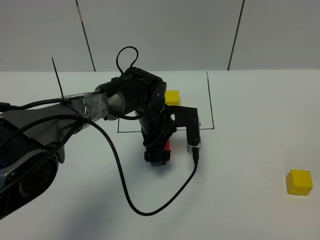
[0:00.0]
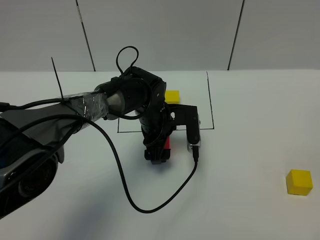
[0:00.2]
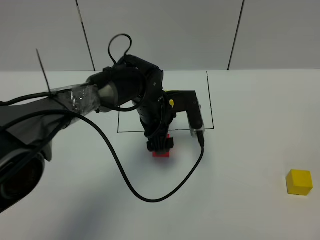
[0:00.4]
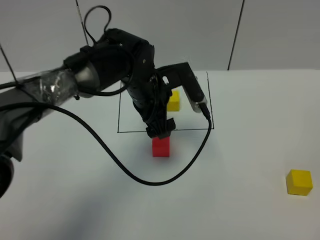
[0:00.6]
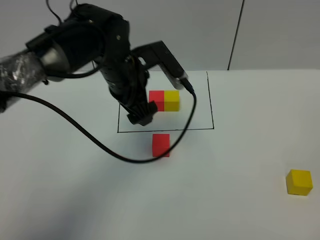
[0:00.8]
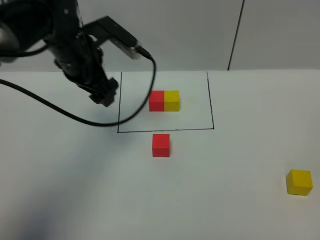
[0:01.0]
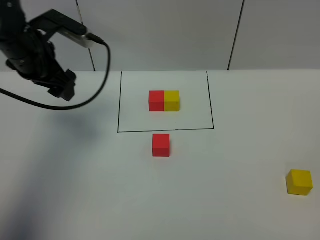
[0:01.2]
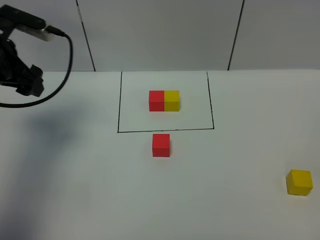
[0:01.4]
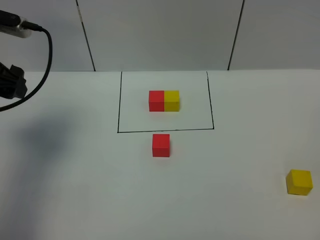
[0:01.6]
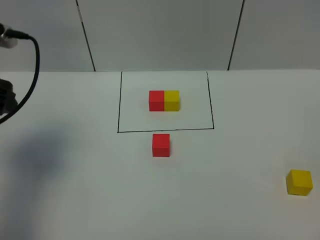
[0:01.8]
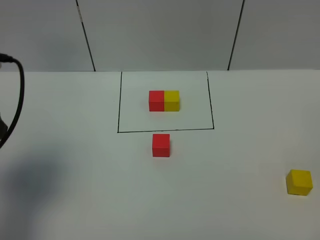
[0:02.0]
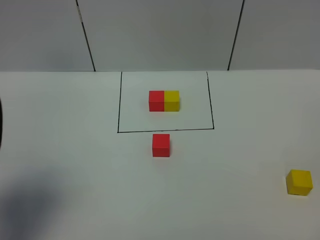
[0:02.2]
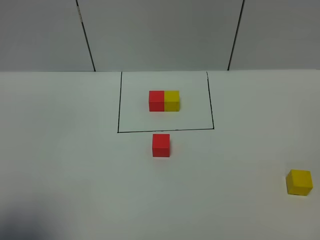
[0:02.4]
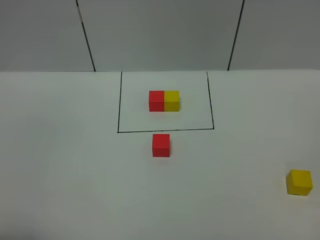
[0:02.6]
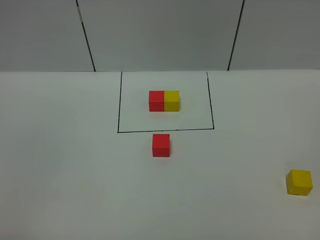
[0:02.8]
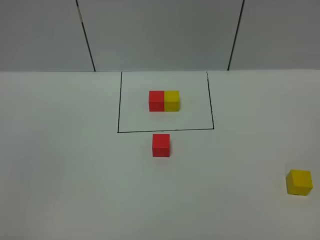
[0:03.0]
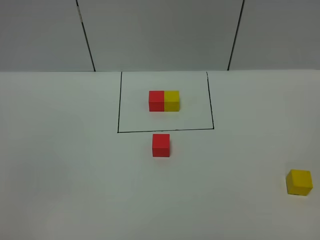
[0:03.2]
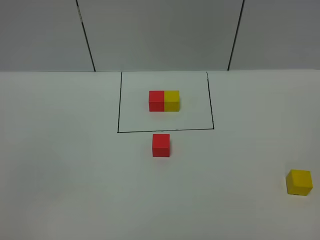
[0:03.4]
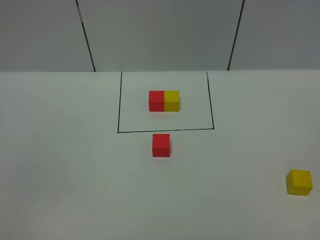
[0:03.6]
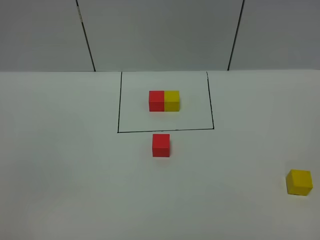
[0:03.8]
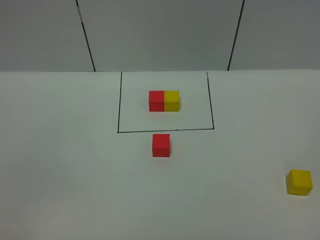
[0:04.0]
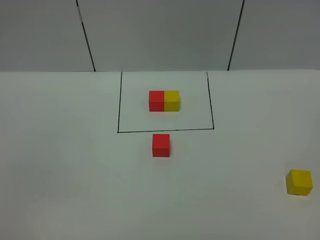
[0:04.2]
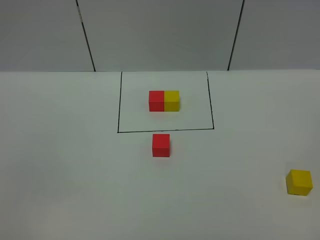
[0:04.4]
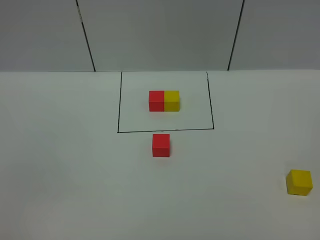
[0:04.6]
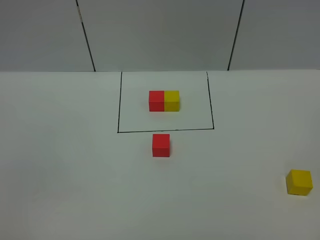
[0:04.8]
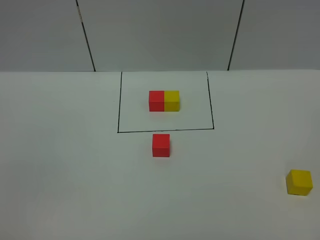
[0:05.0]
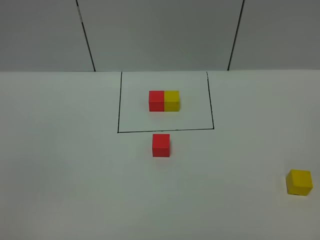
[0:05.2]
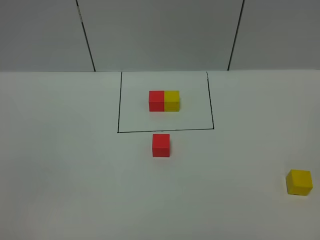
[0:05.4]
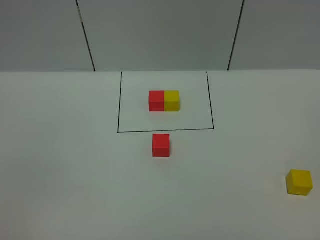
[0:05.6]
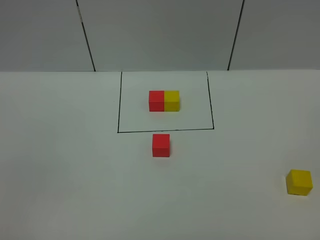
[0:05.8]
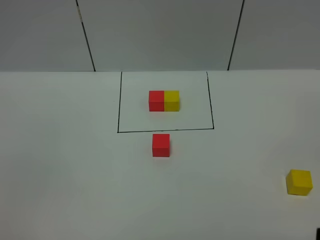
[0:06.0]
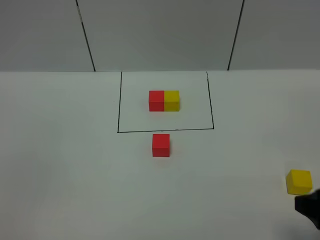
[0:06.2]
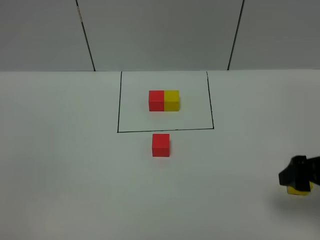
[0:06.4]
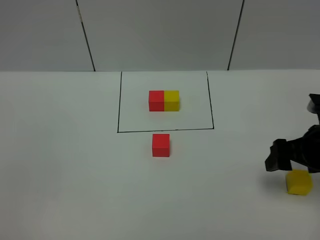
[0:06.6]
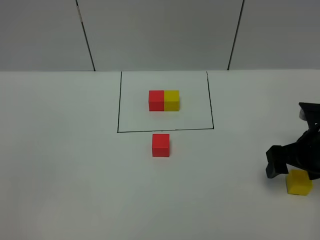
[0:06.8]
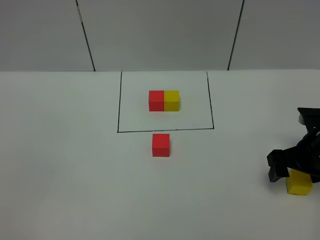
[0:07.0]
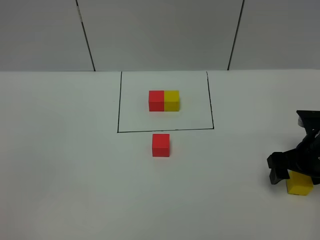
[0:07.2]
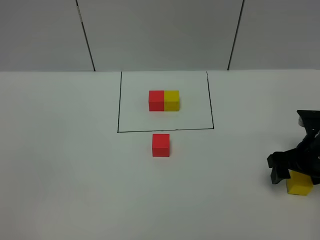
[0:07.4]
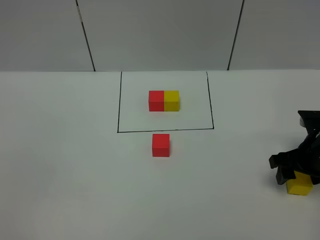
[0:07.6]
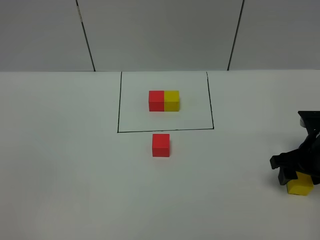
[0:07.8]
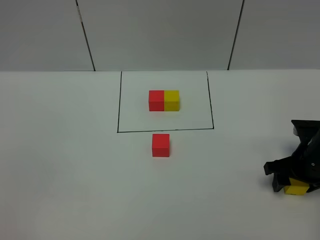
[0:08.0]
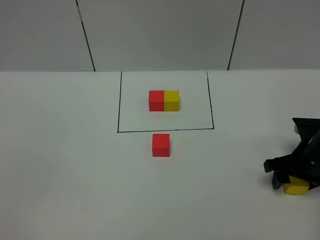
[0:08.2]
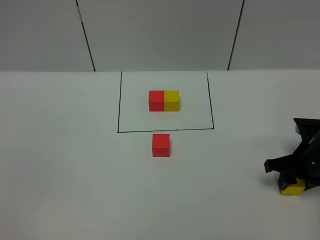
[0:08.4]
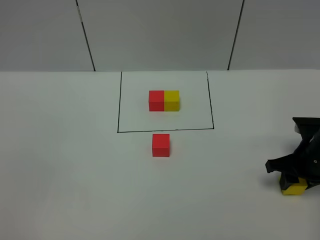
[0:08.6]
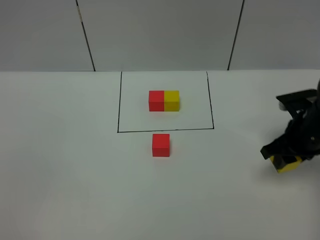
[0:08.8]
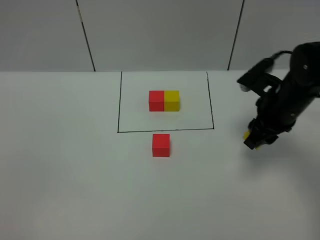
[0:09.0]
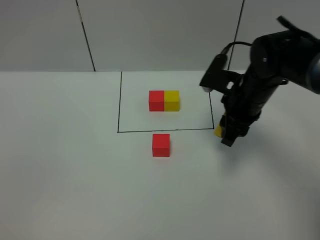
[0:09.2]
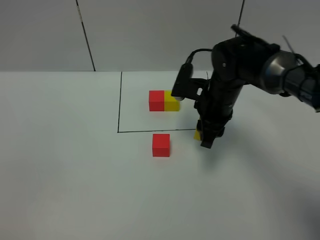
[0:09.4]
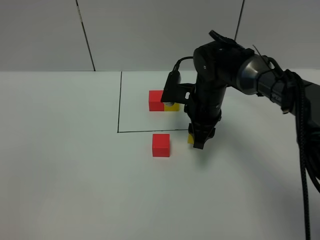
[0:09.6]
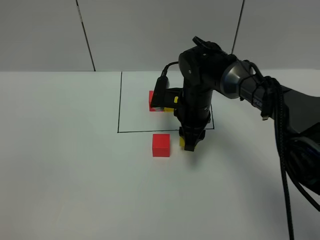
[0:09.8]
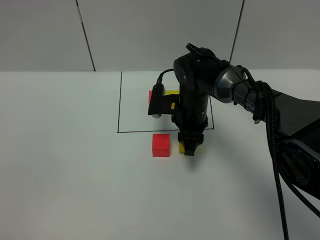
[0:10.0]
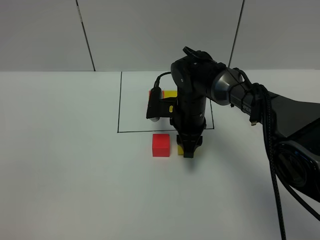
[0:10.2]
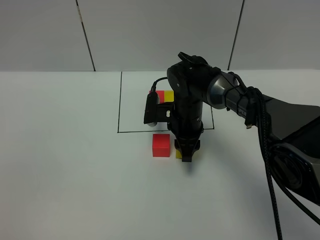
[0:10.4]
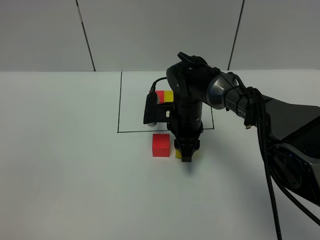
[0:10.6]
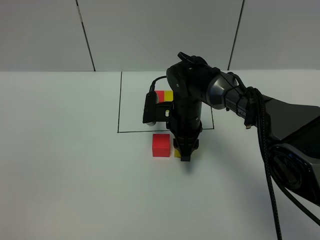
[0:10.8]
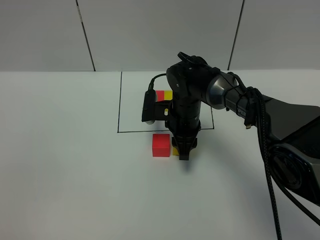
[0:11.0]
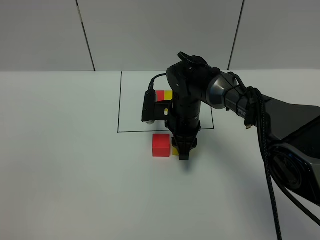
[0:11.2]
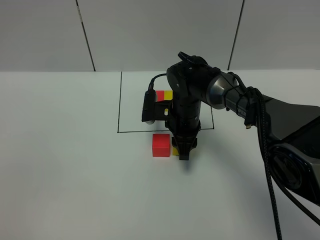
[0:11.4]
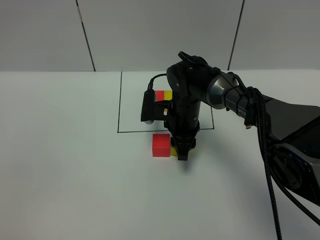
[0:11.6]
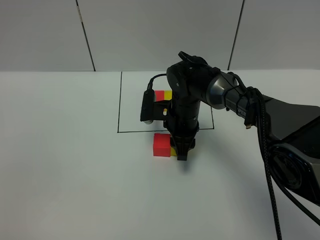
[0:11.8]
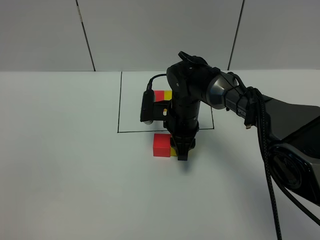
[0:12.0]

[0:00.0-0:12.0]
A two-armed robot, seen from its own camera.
Task of the whole recording: According to the building block template in front, assemble the scattered blocks together.
0:00.0 to 0:01.6: The left gripper moves to the left and upward, approximately 35 cm.
0:01.6 to 0:03.0: The left gripper travels backward by some 35 cm.
0:06.0 to 0:07.6: The right gripper travels forward and downward by about 30 cm.
0:07.6 to 0:09.0: The right gripper is displaced to the left, upward and forward by some 10 cm, and closes its fingers.
0:09.0 to 0:10.4: The right gripper moves to the left and downward, approximately 20 cm.
0:10.4 to 0:12.0: Both grippers stay about where they are.

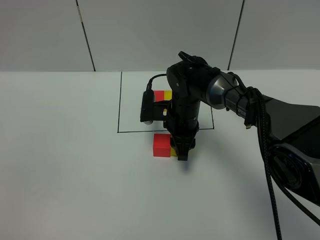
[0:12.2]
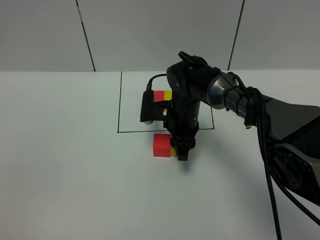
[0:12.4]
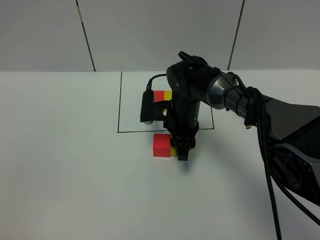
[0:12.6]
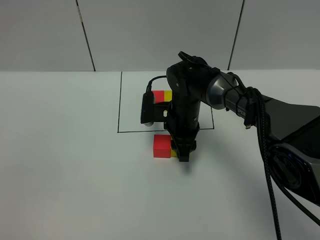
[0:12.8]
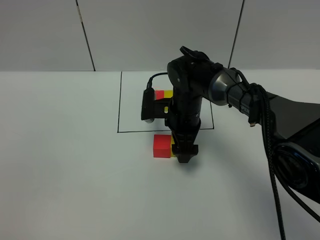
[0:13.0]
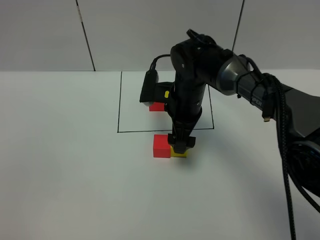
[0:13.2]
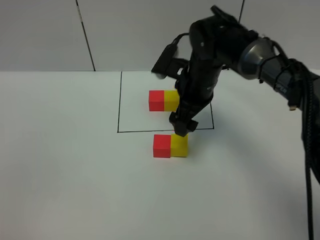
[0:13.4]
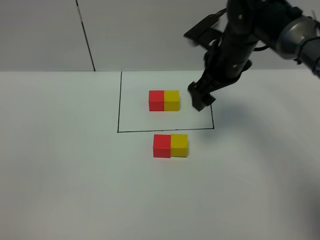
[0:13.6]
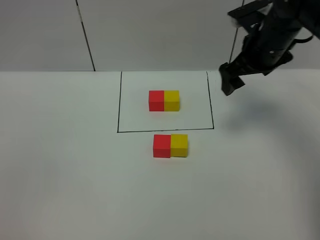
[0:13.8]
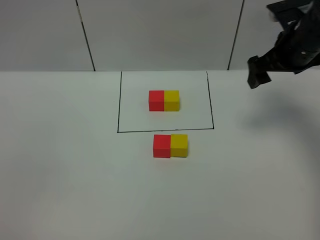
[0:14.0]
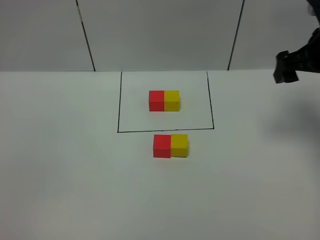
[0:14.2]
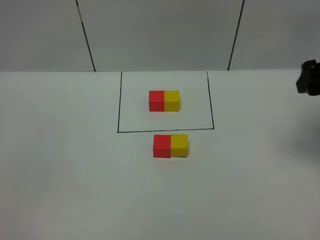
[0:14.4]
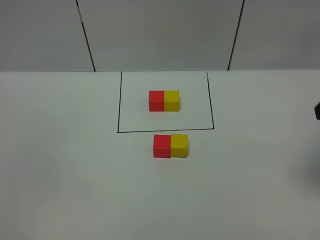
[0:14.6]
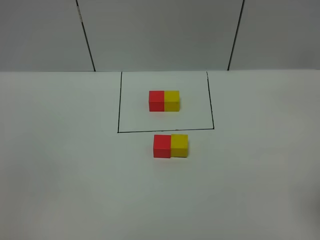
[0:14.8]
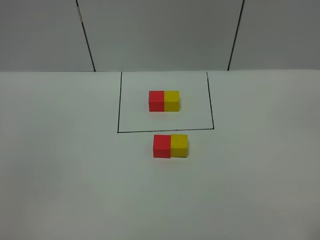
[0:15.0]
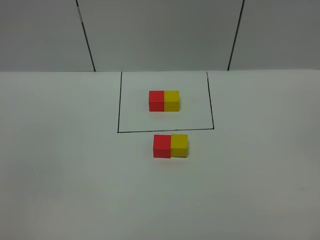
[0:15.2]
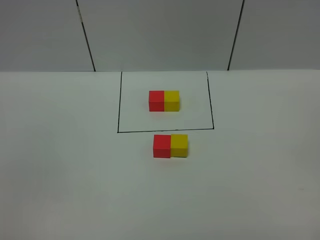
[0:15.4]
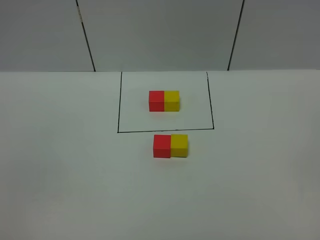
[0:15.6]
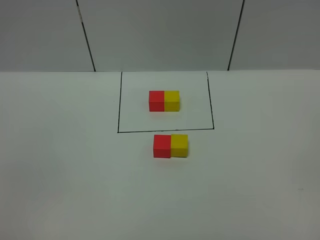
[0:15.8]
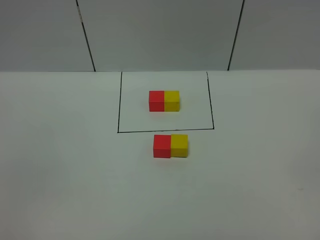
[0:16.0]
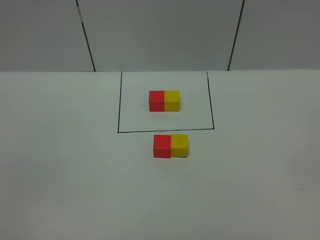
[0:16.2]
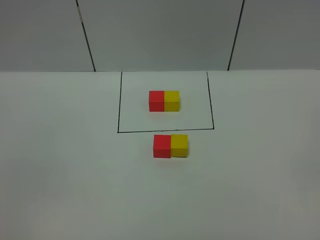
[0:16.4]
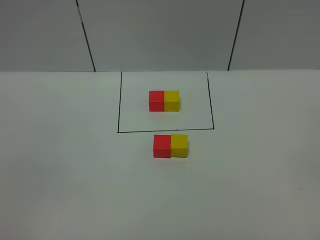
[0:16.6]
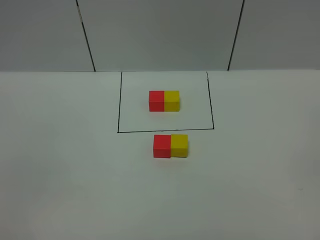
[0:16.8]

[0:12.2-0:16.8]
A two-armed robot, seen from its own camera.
Task of the whole recording: According to the building block template in front, assemble the scattered blocks together.
0:12.2 to 0:13.8: The right gripper is displaced to the right and upward by roughly 20 cm, and opens its fingers.
0:13.8 to 0:15.2: The right gripper goes roughly 40 cm backward.

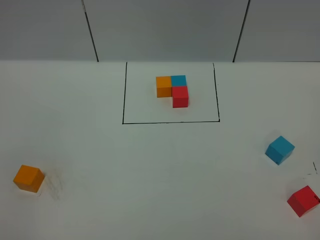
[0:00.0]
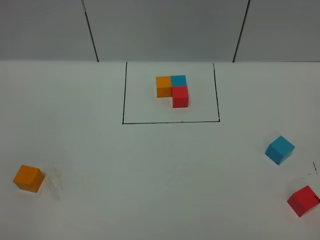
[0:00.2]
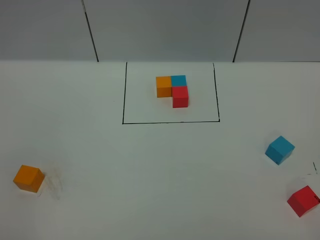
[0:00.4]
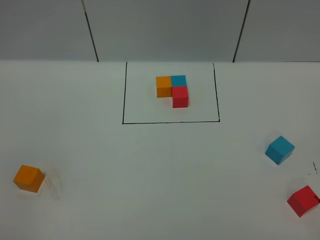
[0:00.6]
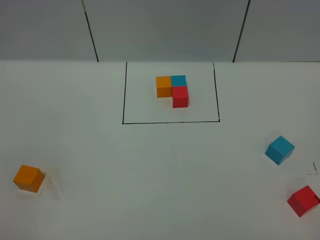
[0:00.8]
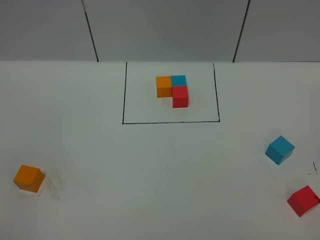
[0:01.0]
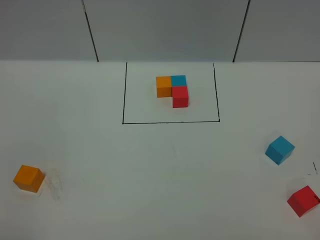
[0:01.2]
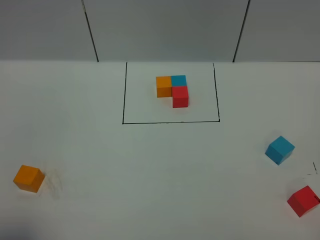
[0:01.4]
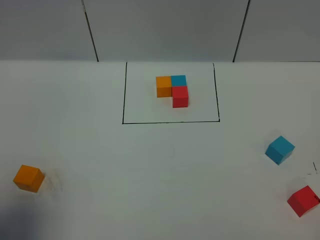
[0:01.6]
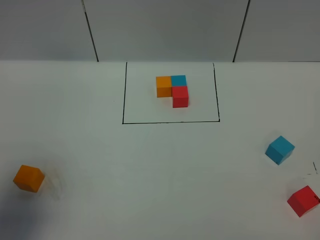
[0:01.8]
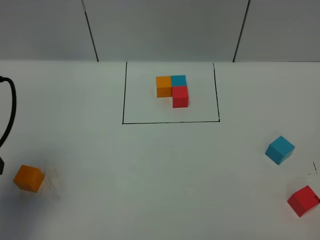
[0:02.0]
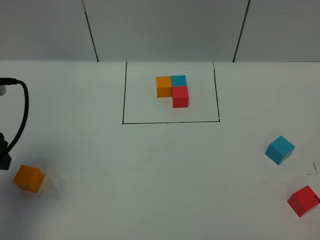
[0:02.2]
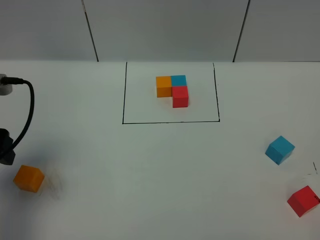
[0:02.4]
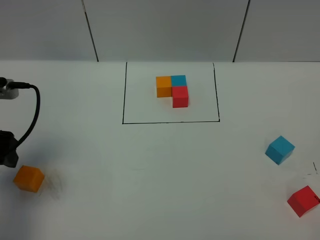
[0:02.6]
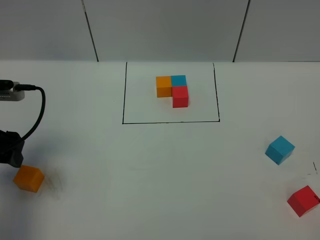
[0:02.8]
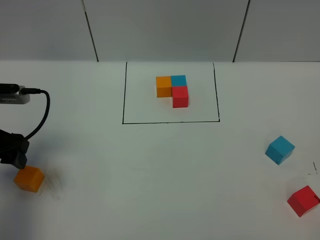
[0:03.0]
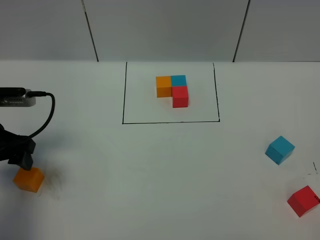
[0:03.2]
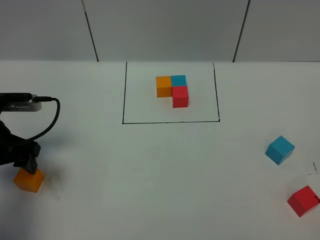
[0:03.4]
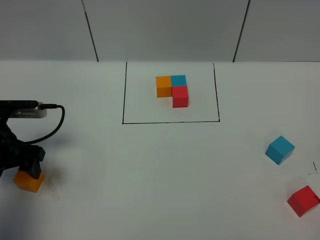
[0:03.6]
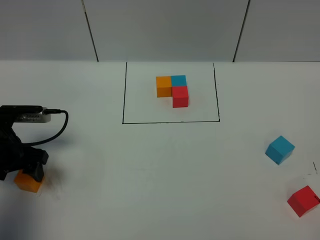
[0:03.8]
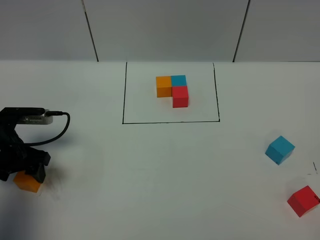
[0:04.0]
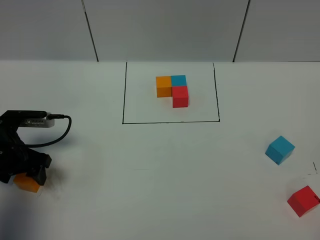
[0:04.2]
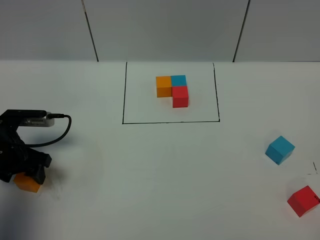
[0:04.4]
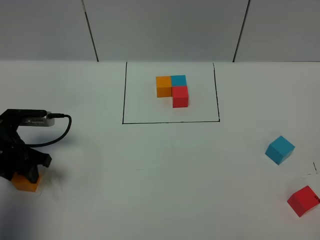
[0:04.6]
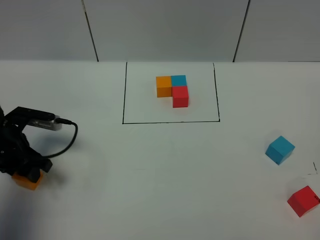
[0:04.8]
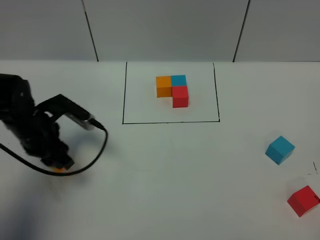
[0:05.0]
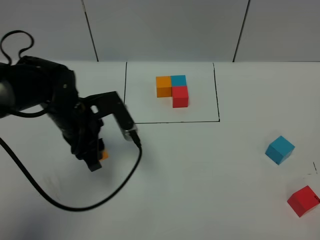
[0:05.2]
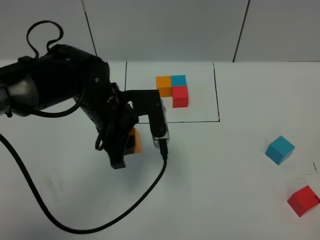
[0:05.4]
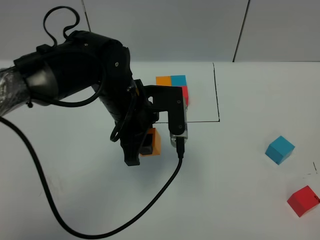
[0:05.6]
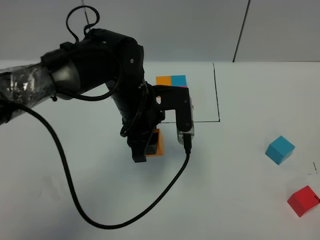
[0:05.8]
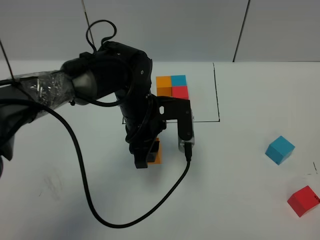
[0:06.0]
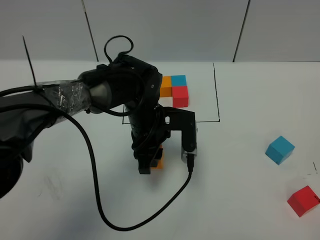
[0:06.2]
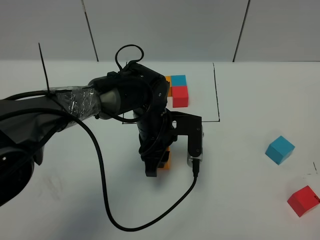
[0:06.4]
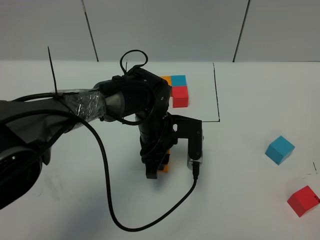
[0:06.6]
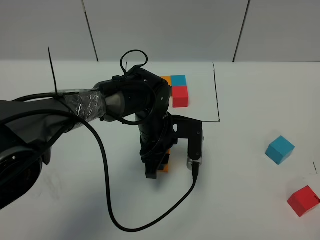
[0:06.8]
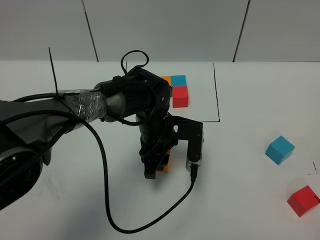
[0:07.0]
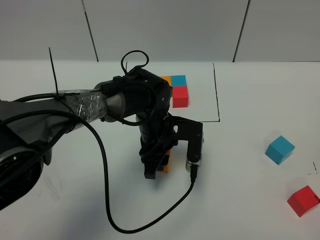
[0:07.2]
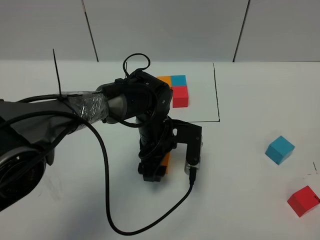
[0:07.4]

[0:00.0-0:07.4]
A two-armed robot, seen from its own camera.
Task of the whole recording: According to the building block template in front, assemble the scattered blocks together.
0:01.4 to 0:03.0: The left gripper shifts about 25 cm forward and downward.
0:03.0 to 0:04.4: The left gripper shifts approximately 10 cm downward.
0:04.4 to 0:06.0: The left gripper travels to the right by roughly 25 cm, and closes up.
0:06.0 to 0:07.4: The left gripper shifts roughly 5 cm downward, and opens its fingers.
